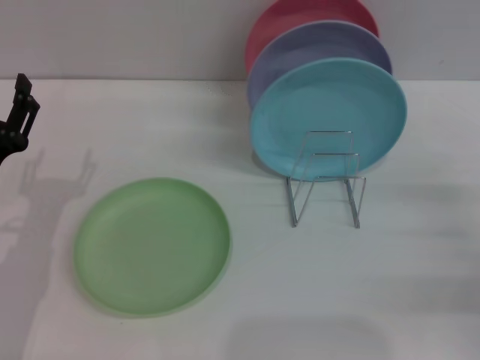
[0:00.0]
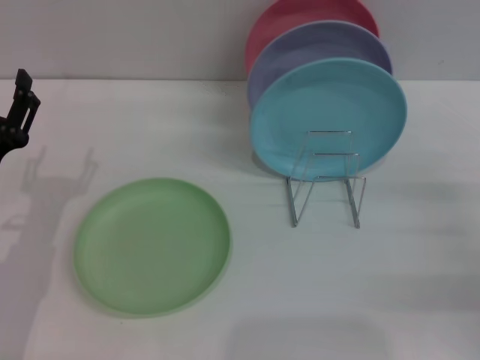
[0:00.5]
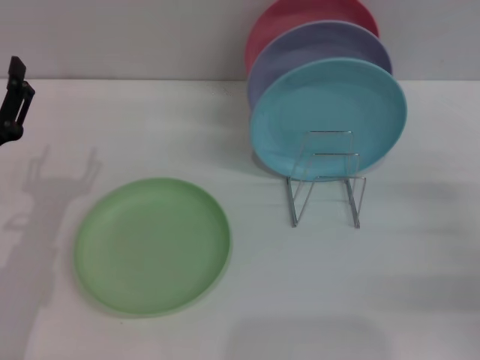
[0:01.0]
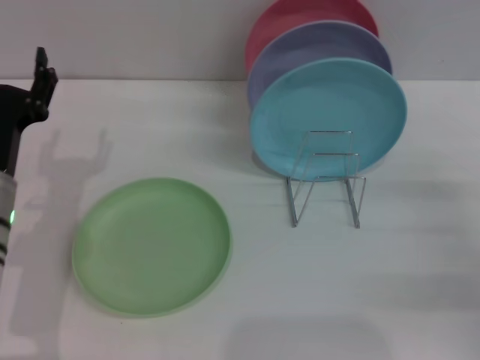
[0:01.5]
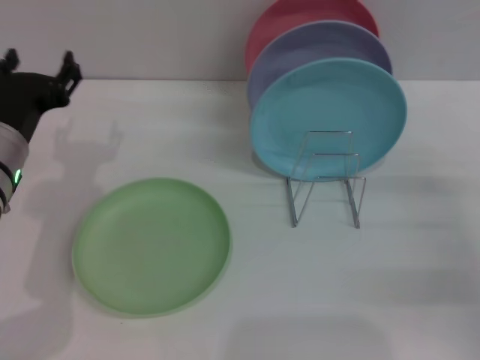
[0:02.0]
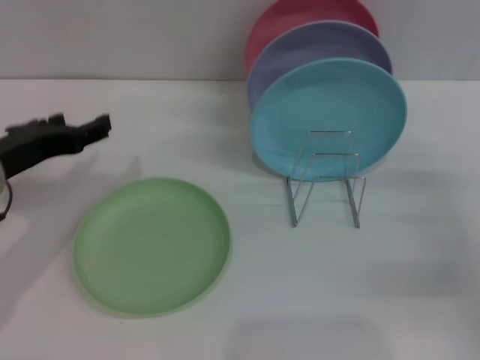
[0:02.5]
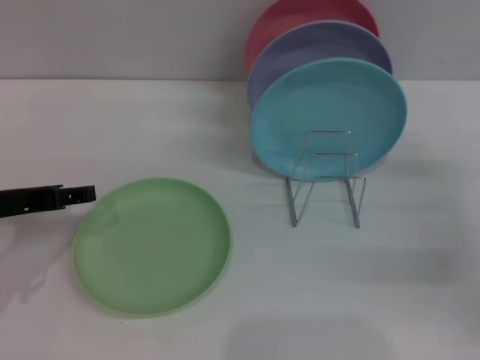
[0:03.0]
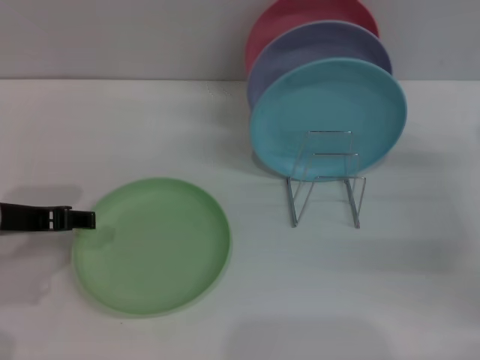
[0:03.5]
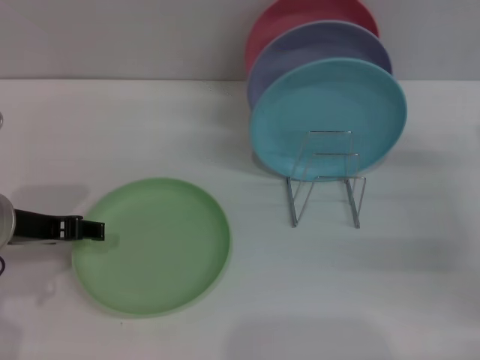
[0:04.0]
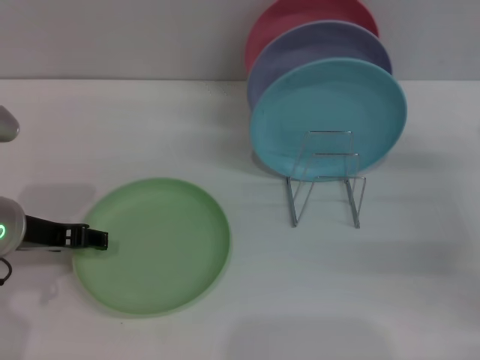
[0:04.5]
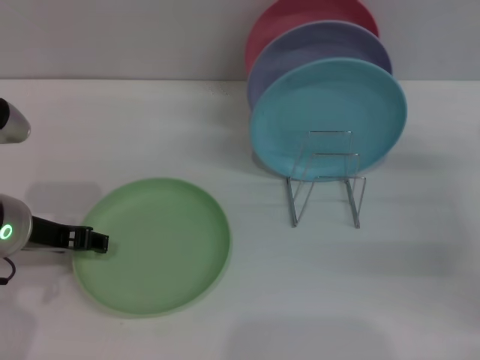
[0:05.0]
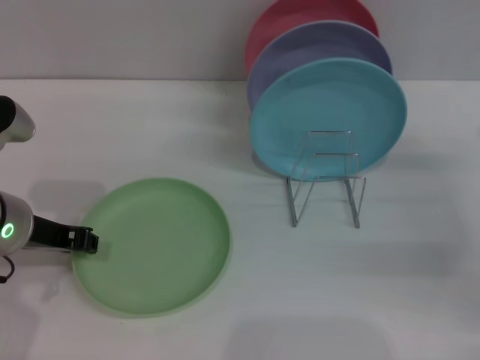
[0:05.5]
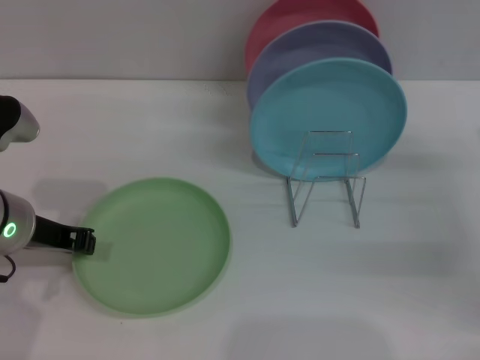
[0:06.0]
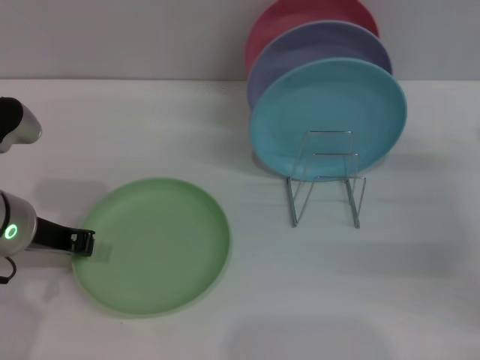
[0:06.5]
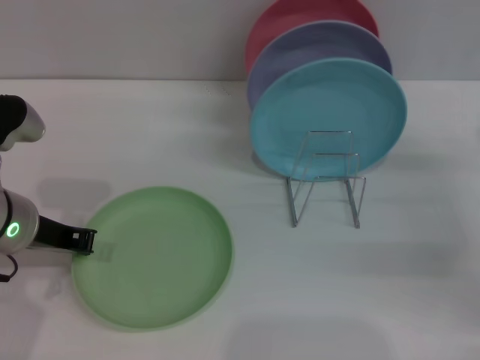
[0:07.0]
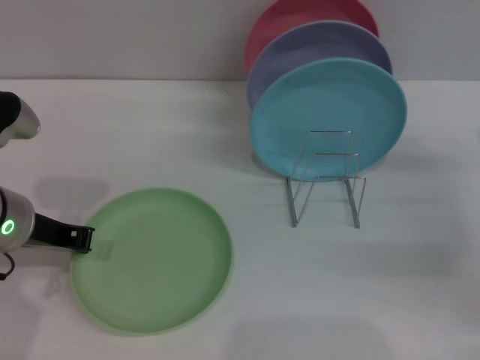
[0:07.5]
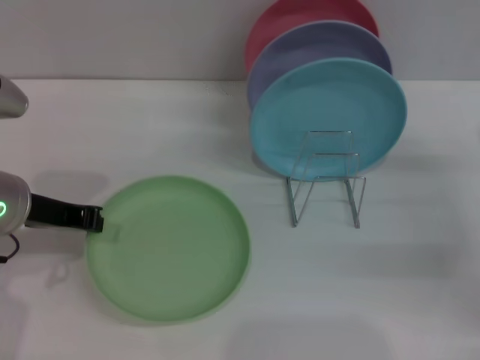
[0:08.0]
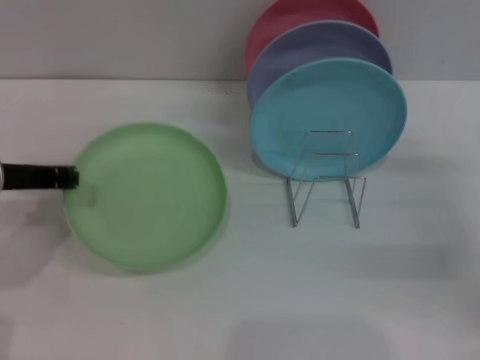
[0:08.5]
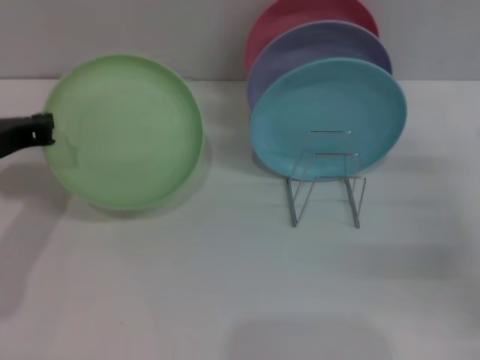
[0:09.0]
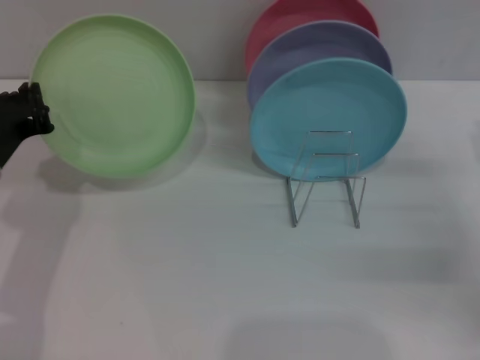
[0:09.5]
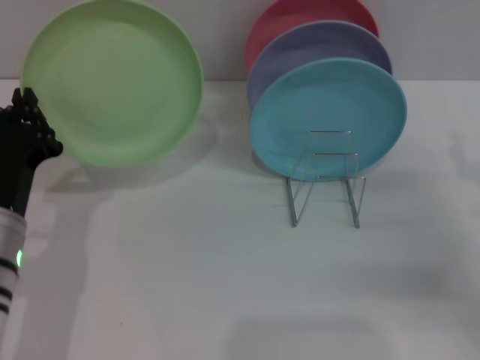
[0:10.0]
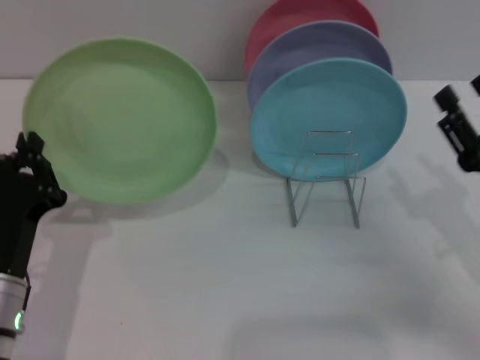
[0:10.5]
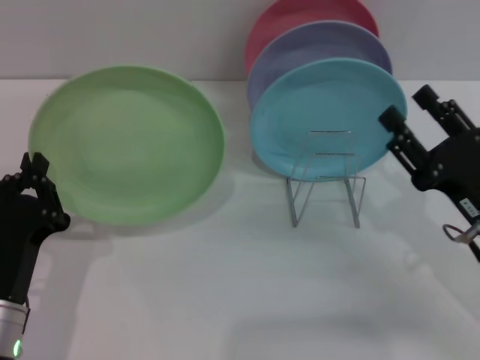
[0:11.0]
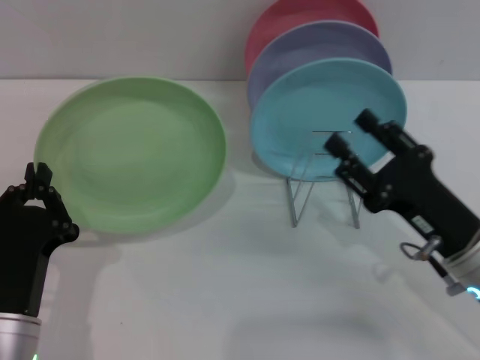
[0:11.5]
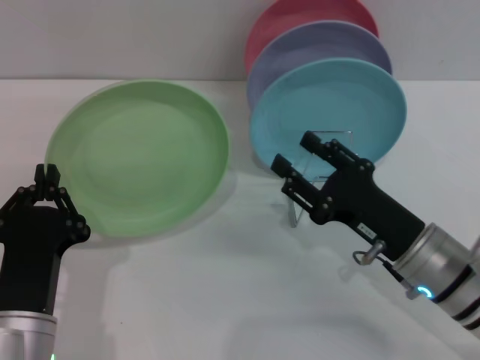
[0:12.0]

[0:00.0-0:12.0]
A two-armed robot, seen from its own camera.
Task of the whole recording: Grip the plate with one hand, pass it to the other, then set it on the shelf.
Step, 0:00.0 to 0:09.5: Pick up the plate with the left gripper.
0:00.0 to 0:02.0: The left gripper goes some 10 cm upward and forward.
0:04.0 to 0:06.0: The left gripper closes up.
0:06.0 to 0:08.0: The left gripper closes up.
0:08.0 to 0:10.0: The left gripper is displaced downward and backward by about 10 cm.
0:10.0 to 0:12.0: The right gripper goes approximately 15 cm to the left; the left gripper shifts about 10 cm backward.

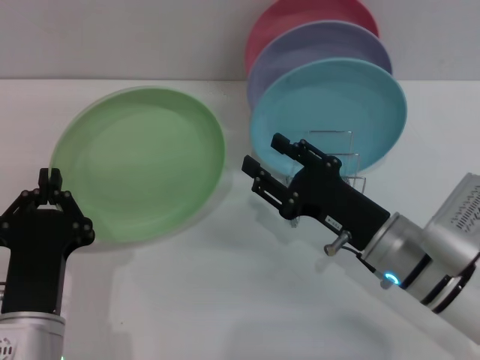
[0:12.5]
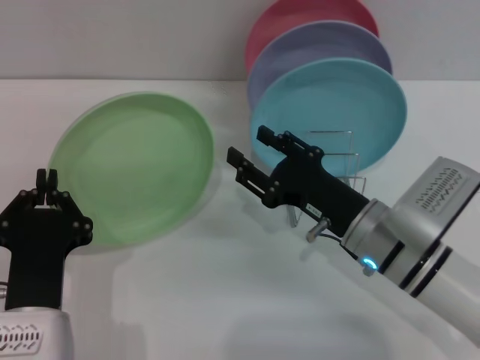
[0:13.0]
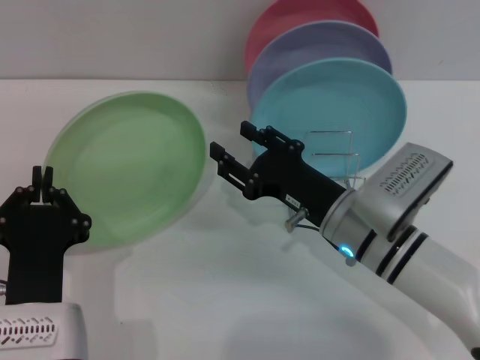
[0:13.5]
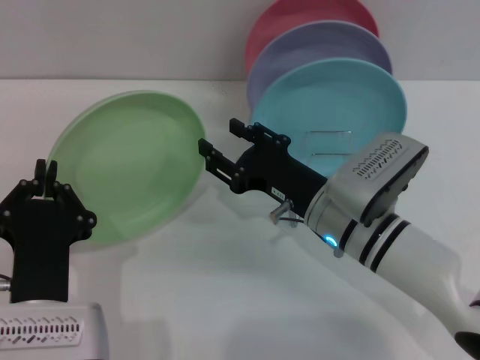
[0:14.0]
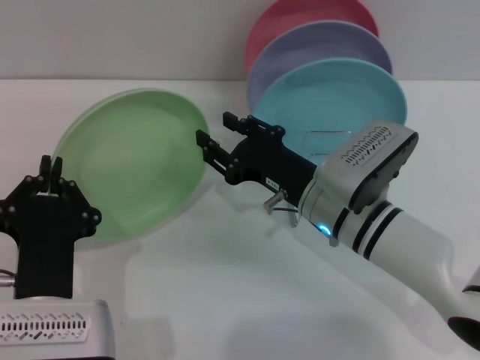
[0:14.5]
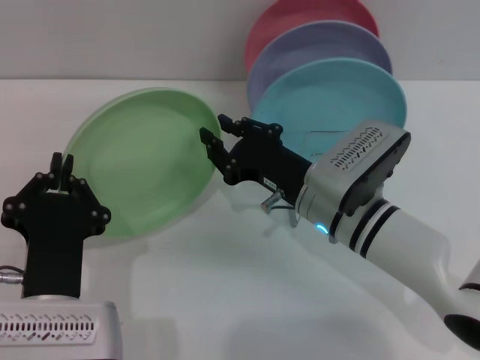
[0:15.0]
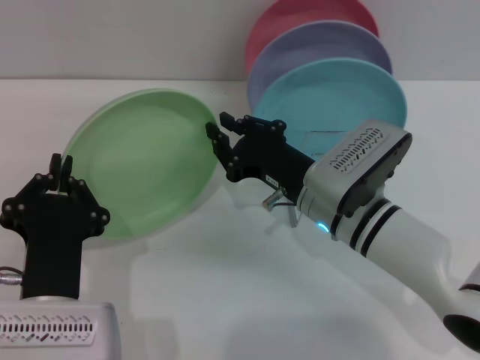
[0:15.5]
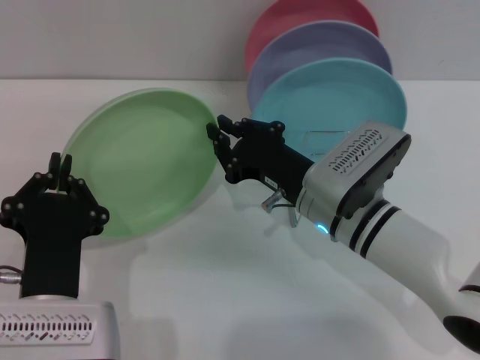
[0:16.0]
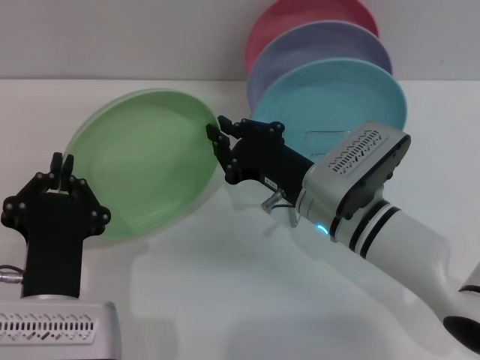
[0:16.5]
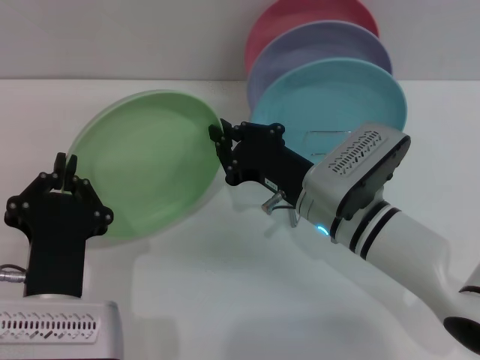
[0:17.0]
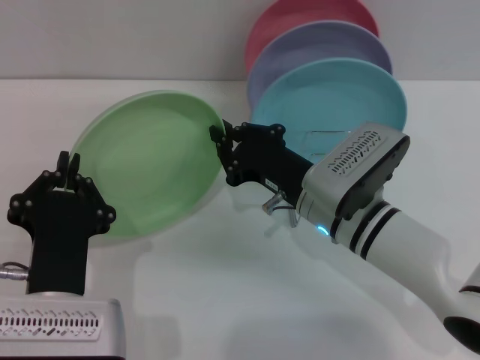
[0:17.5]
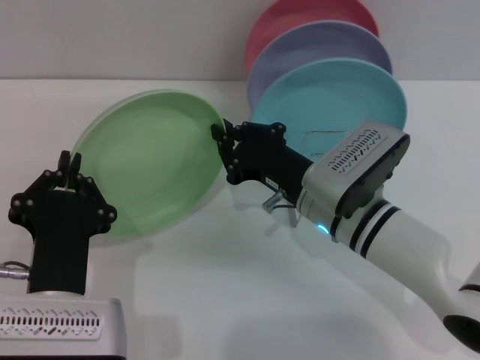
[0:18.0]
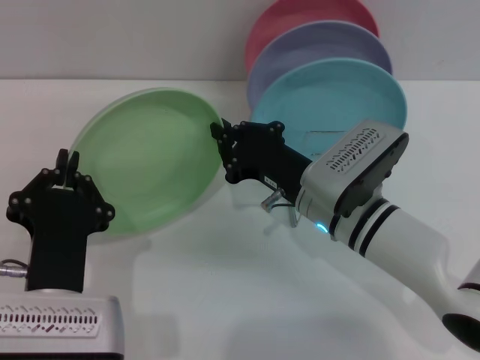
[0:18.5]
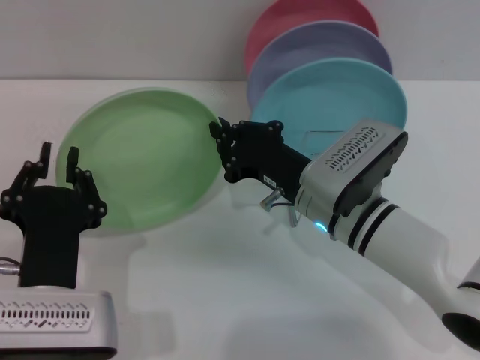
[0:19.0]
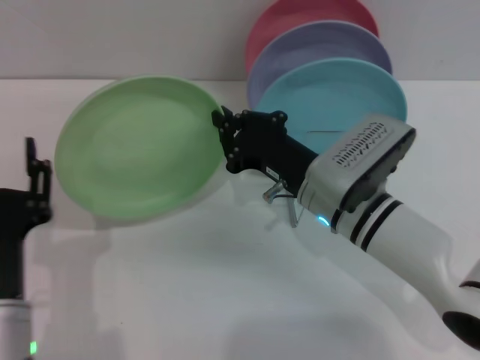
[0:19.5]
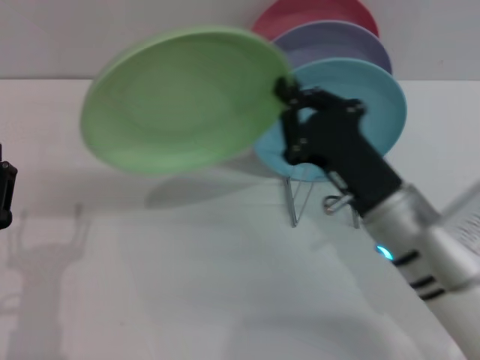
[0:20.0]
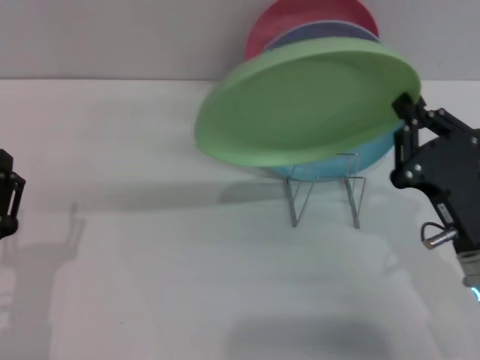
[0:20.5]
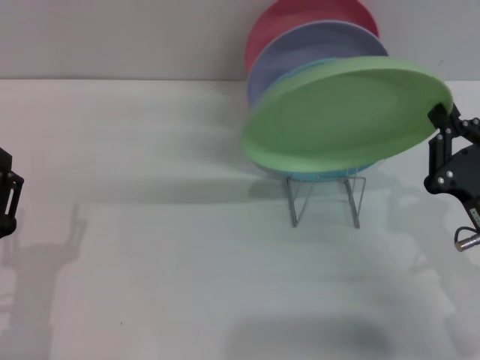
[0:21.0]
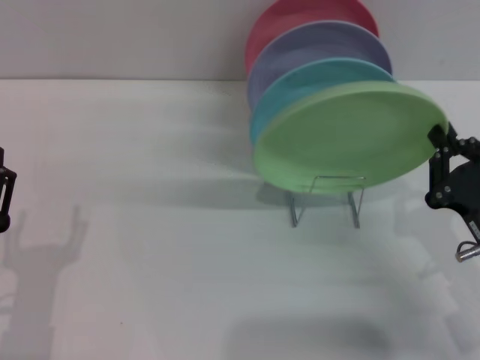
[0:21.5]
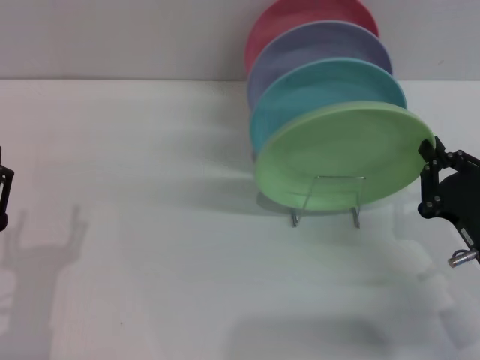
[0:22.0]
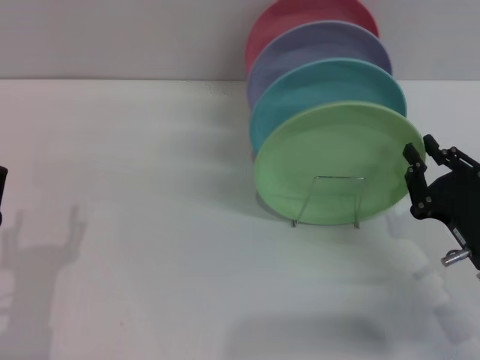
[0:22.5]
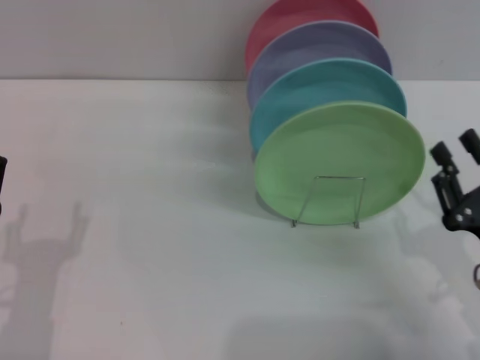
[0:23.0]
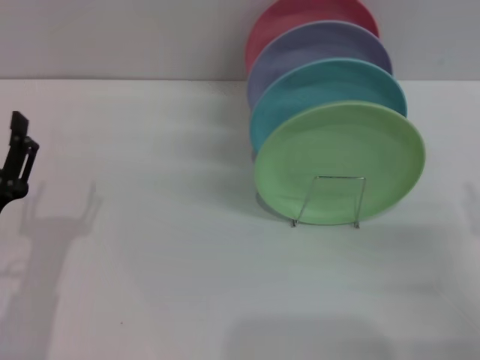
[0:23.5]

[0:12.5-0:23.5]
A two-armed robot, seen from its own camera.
Task of the whole recording: Grip the plate with one hand, pass it to the other, then set it on the shelf.
Step, 0:12.5 to 0:19.5: Pass the plate from the left gripper to the right gripper.
Step, 0:20.0 to 0:23.0: Place the plate on the shelf with the right gripper.
0:12.5 to 0:14.5: The right gripper heads to the left, covering approximately 5 cm.
0:14.5 to 0:16.0: The right gripper closes its fingers.
0:16.0 to 0:18.0: The two grippers keep their place.
0:18.0 to 0:20.0: The right gripper is displaced backward by some 5 cm. The left gripper moves to the left, some 10 cm, and opens.
0:20.0 to 0:21.5: The right gripper moves to the right, about 10 cm.
0:21.5 to 0:23.5: The right gripper goes roughly 5 cm to the right, and opens its fingers.
